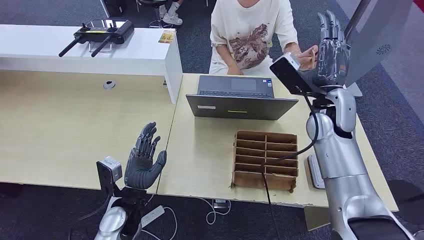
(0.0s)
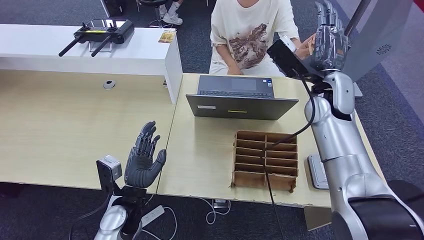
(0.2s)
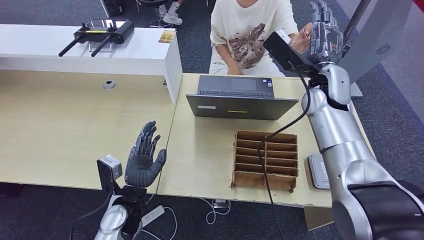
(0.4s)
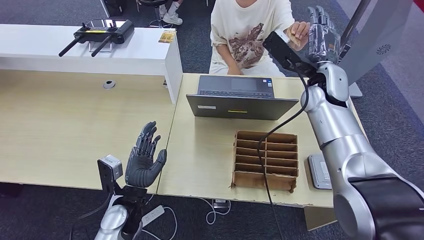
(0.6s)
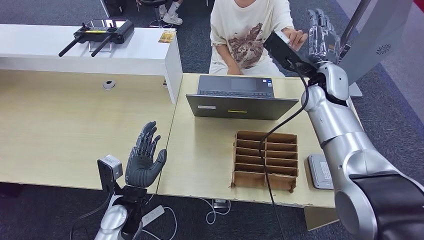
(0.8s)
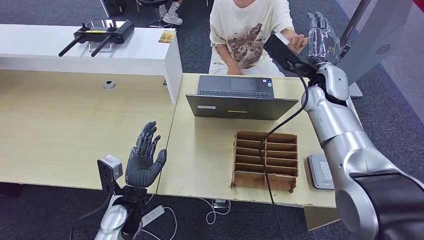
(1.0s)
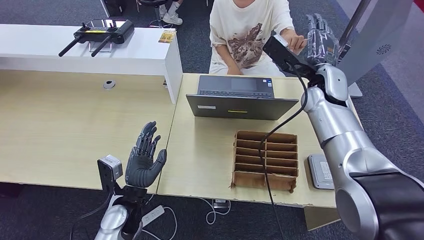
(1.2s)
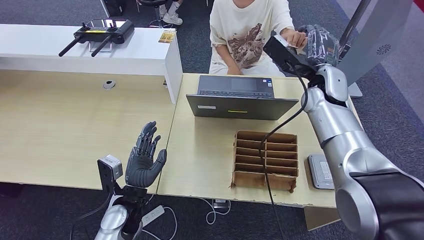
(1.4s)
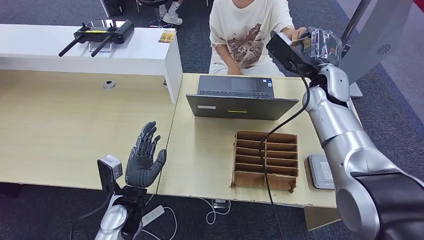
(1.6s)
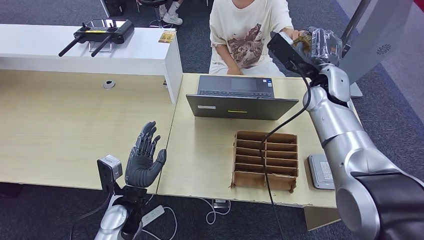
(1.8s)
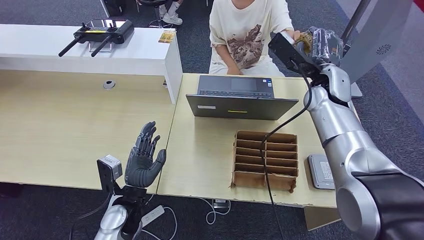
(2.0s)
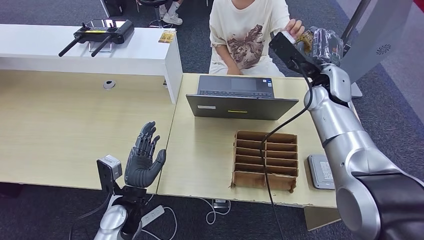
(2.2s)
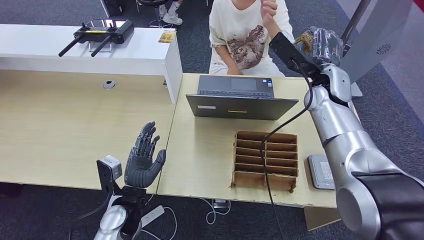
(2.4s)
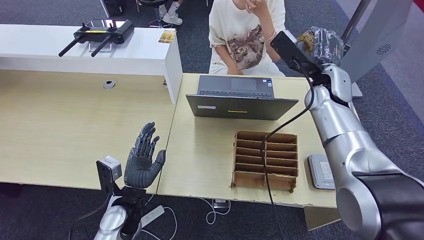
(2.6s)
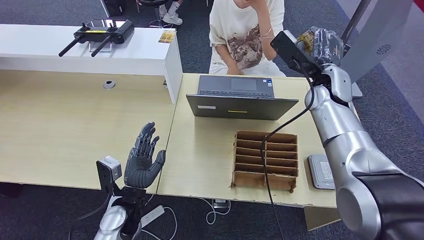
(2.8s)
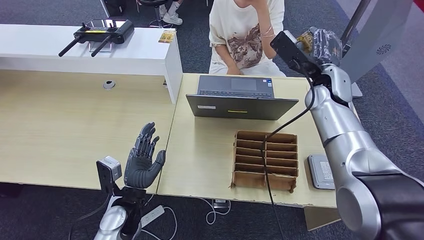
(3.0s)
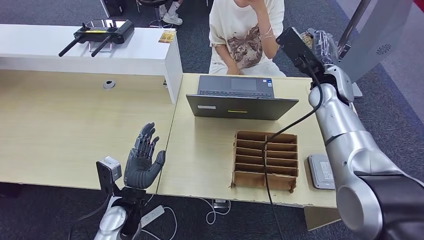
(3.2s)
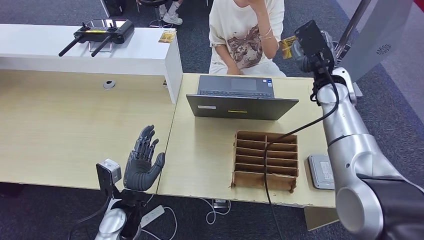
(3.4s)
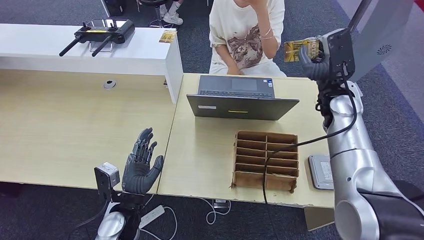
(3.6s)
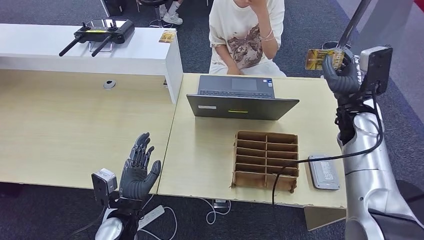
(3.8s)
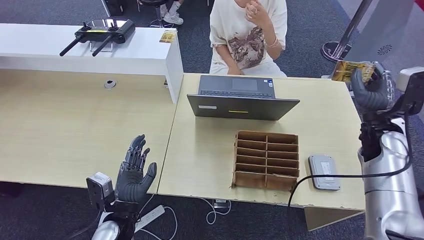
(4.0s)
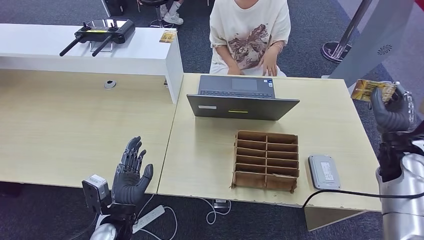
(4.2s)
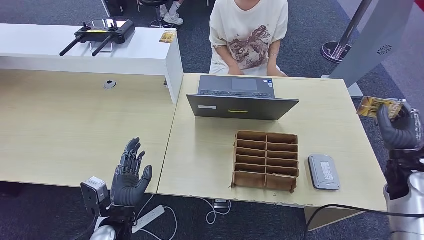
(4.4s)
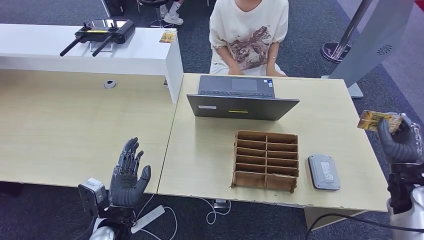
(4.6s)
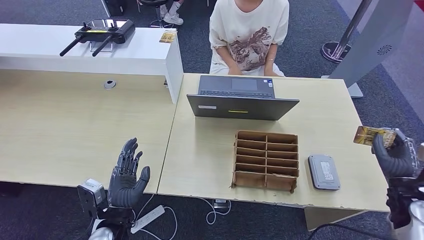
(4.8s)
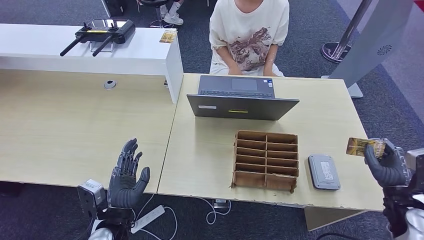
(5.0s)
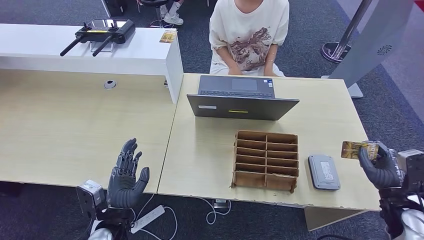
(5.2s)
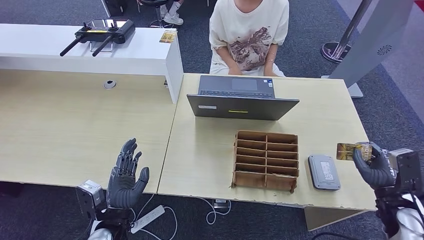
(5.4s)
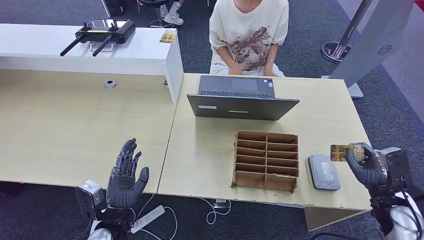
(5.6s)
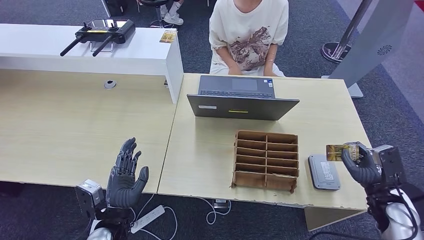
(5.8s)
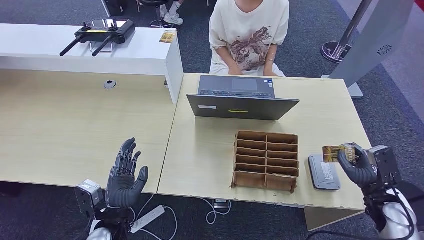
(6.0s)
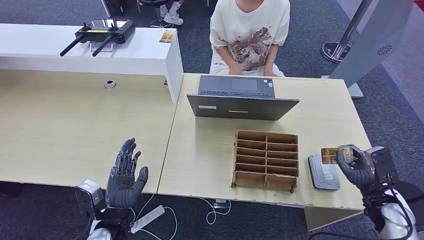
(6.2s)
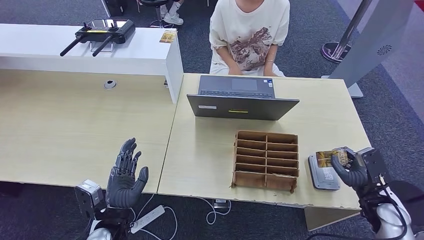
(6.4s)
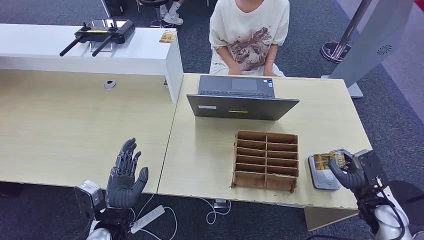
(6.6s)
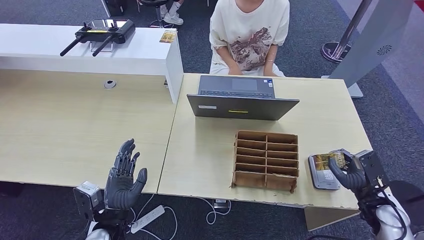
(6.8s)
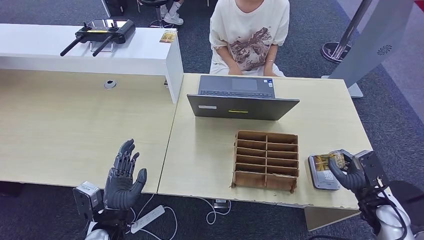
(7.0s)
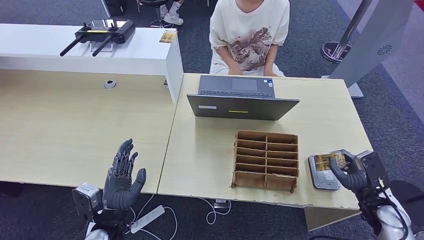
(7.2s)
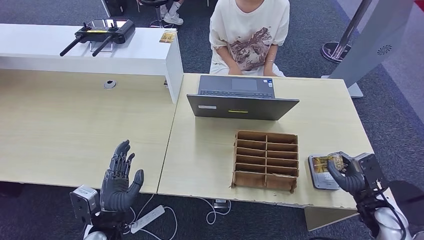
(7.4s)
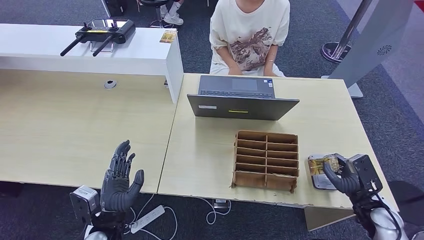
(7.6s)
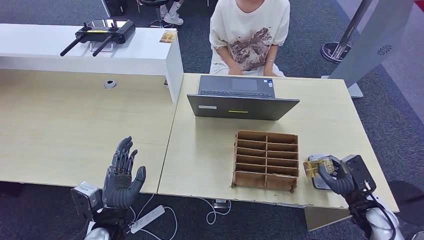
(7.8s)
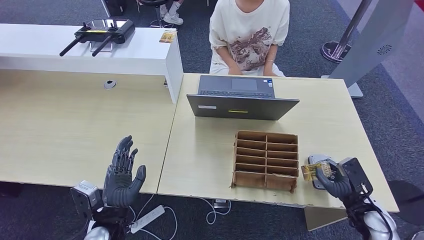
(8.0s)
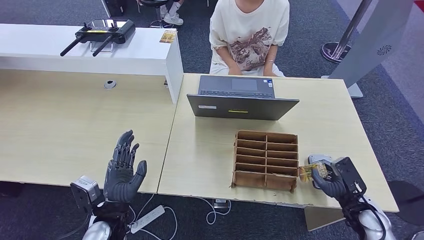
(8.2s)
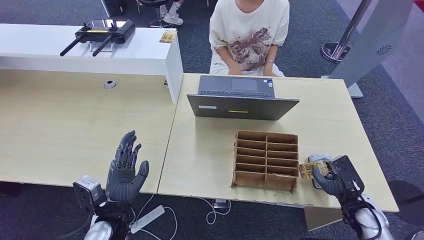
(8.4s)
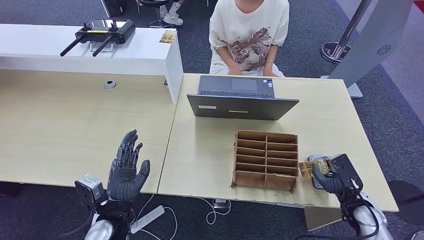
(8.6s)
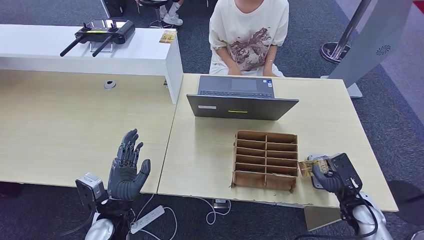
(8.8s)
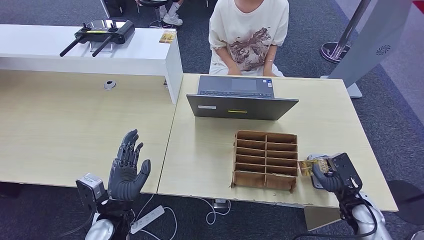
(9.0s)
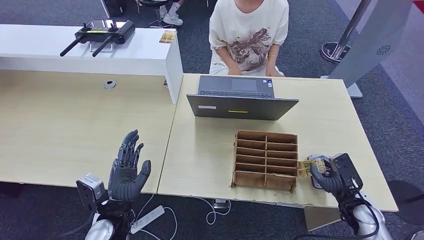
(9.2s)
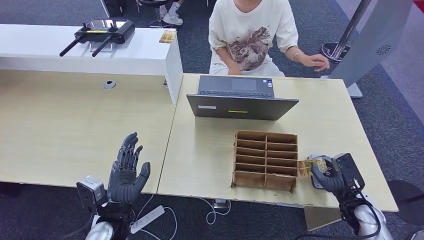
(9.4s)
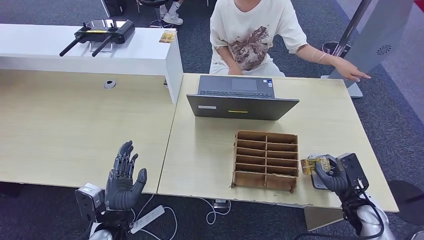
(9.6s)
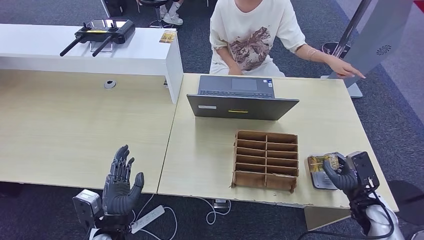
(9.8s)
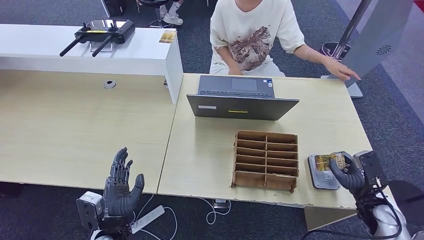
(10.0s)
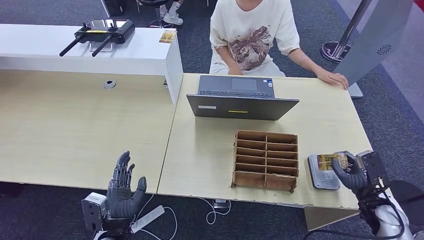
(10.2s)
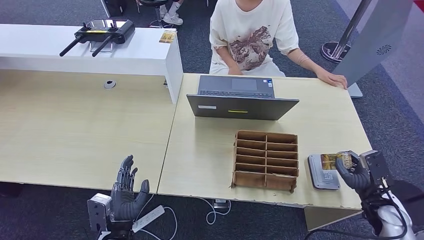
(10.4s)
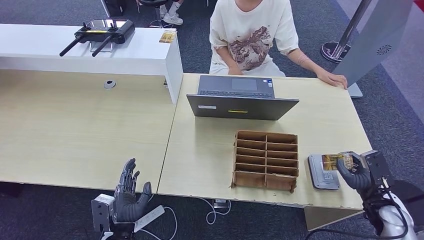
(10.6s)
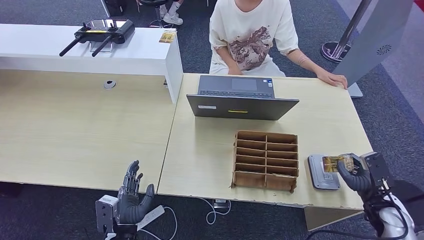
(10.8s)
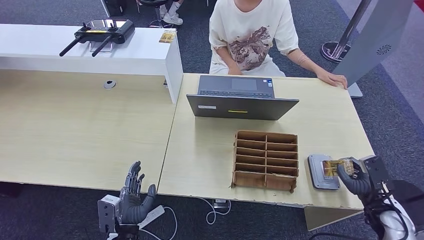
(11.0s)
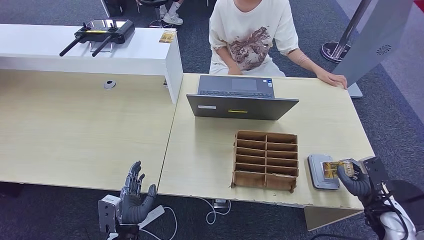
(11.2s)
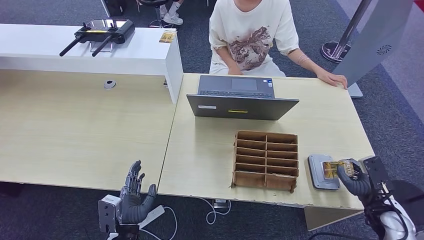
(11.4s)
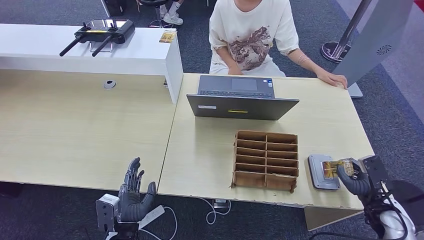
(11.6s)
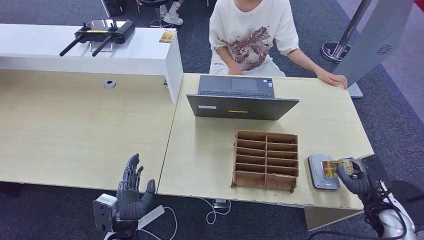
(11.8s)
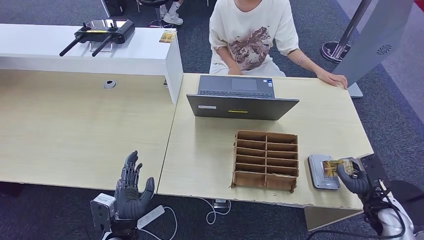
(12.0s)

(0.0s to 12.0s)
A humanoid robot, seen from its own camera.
Step, 0.0s - 4.0s: Take the ID card from the person's hand.
1.6s - 3.0s: The hands move only a little.
3.0s - 4.4s: The right hand moves to the right, backward and downward, approximately 25 cm. Meanwhile the left hand moves roughly 5 cm.
4.4s - 6.0s: The right hand moves downward, about 10 cm.
6.0s - 7.6s: The hands make only small movements.
7.6s - 9.0s: The hands stay close to where they were, moving slightly.
9.0s - 10.4s: The right hand changes place by roughly 5 cm; the left hand shifts approximately 5 cm downward.
10.4s - 12.0s: The hands move only a little.

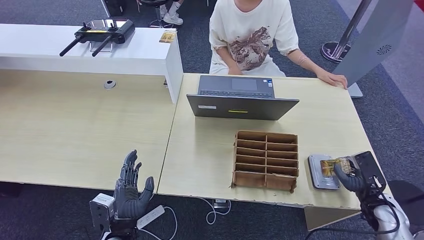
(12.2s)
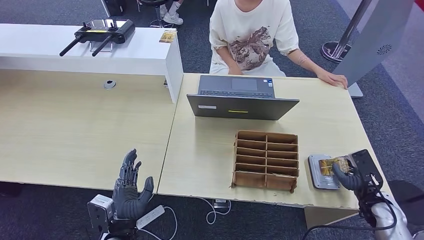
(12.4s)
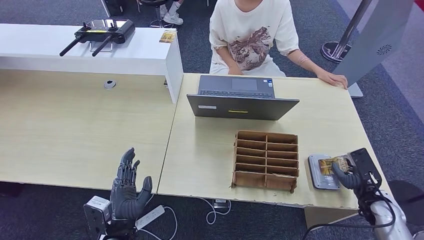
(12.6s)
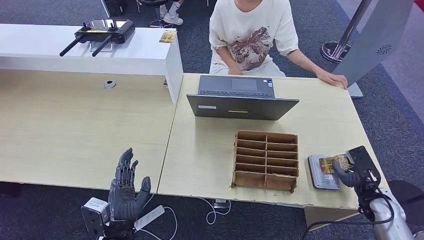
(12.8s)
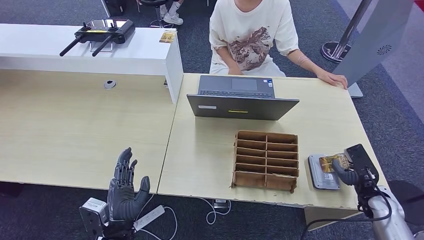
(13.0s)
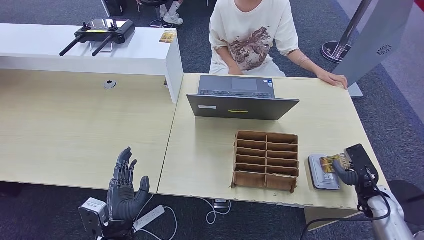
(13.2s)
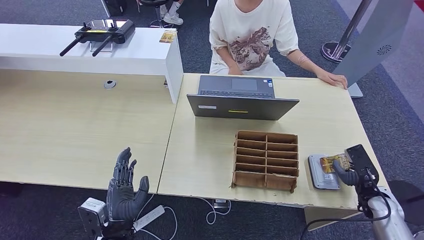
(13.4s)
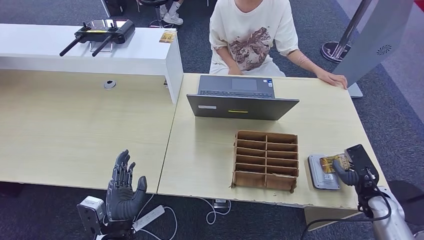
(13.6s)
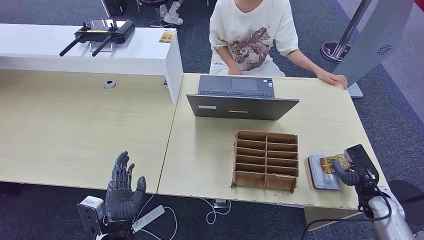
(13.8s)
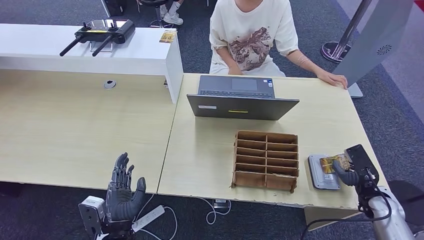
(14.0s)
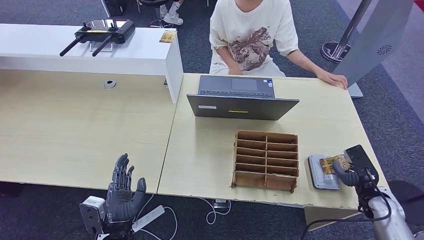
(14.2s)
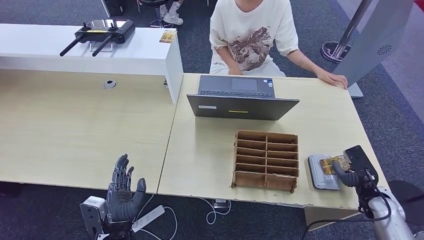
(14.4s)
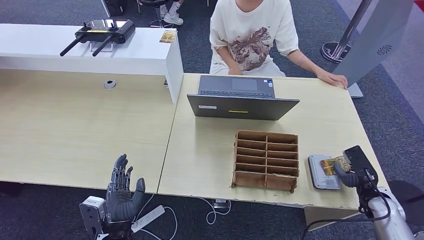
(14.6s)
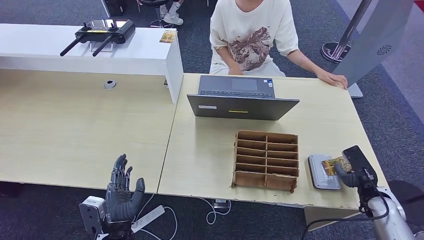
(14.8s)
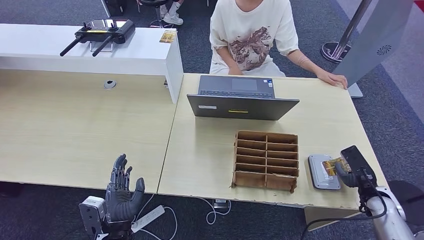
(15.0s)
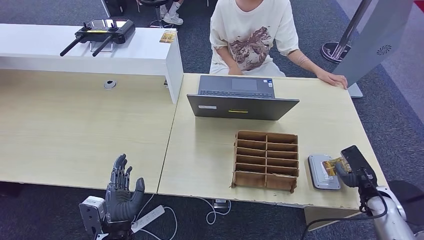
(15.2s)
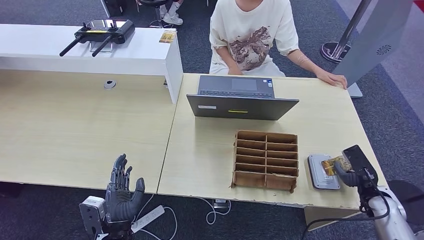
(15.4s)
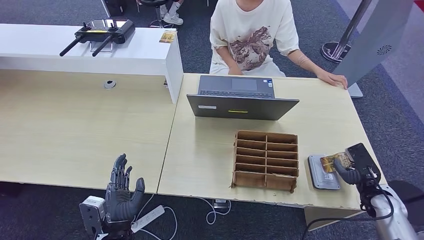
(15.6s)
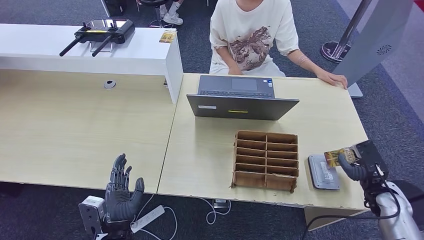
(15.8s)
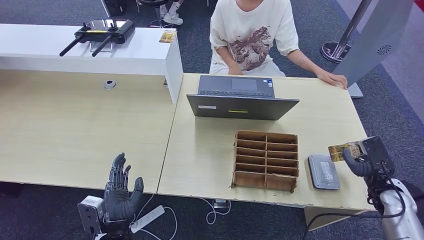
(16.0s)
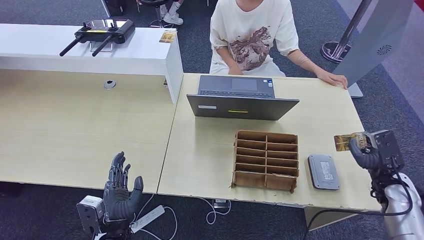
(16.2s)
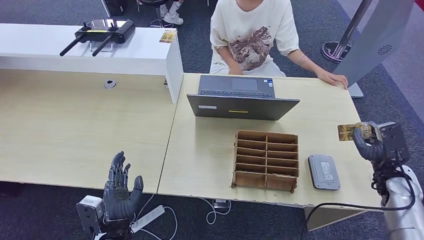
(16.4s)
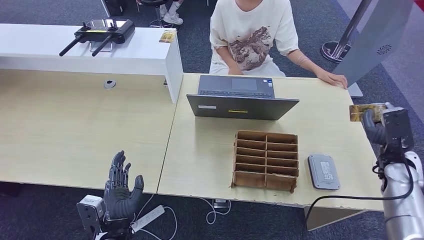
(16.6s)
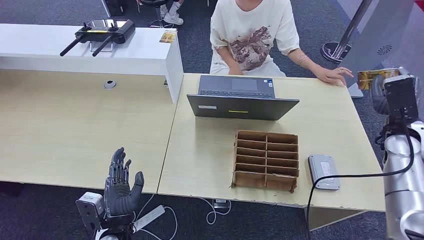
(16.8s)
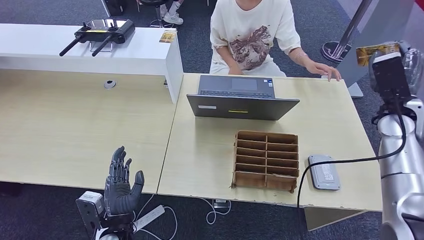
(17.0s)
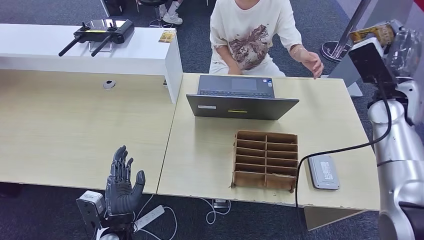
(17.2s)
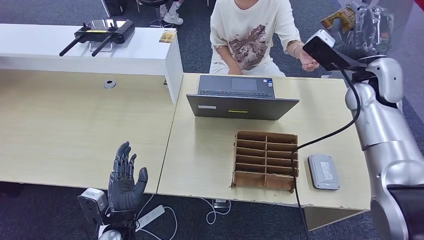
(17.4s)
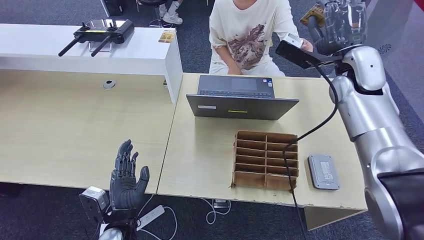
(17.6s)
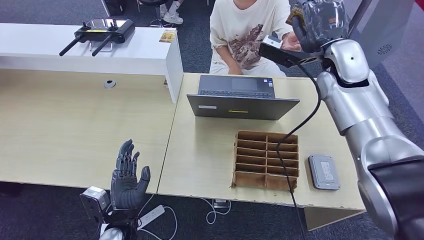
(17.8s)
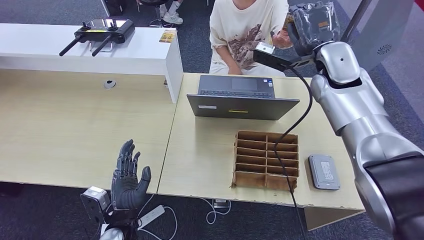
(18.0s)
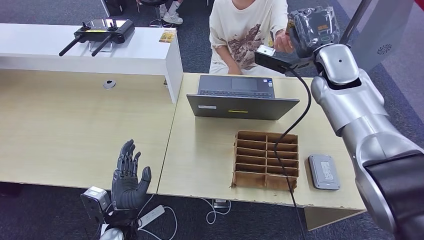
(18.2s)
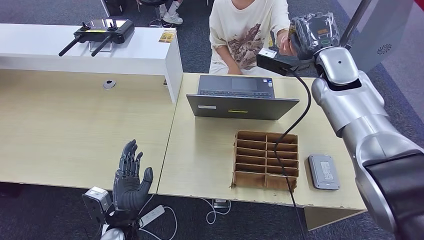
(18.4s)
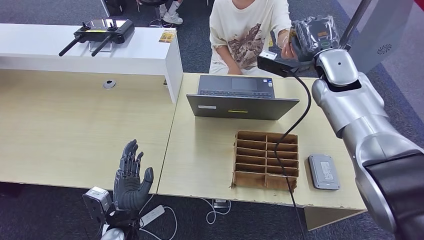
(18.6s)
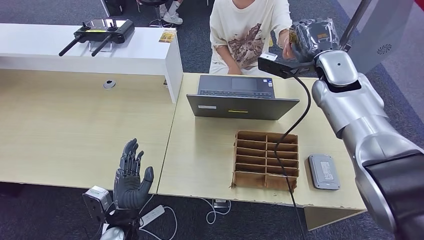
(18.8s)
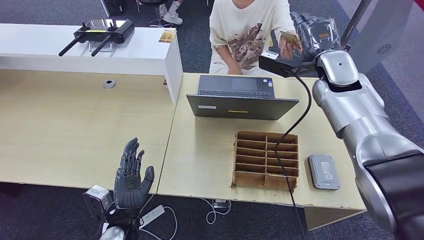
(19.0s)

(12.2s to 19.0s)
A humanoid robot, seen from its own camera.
Step, 12.2s - 16.4s: Place the ID card on the card reader.
12.2s - 15.0s: There are only small adjustments of the hands.
15.0s - 16.2s: The right hand shifts by roughly 5 cm.
16.2s - 17.6s: The right hand heads upward, to the left and forward, covering roughly 35 cm.
